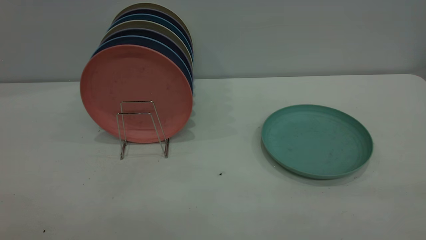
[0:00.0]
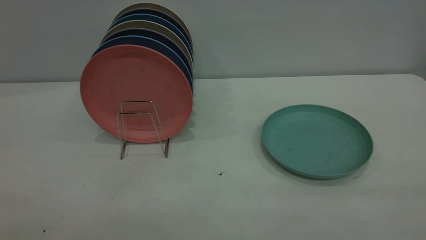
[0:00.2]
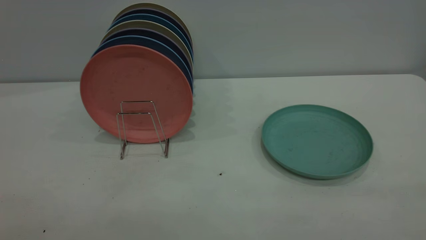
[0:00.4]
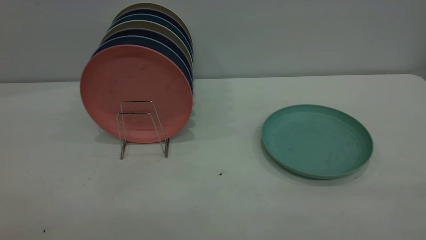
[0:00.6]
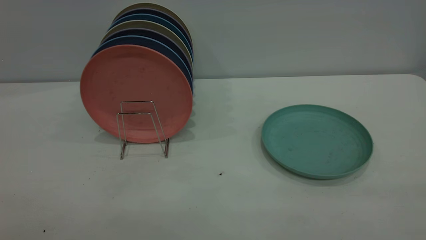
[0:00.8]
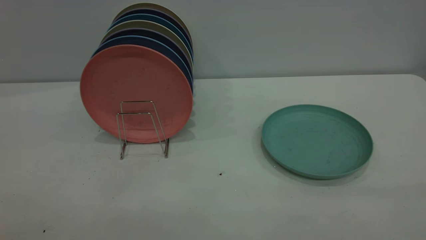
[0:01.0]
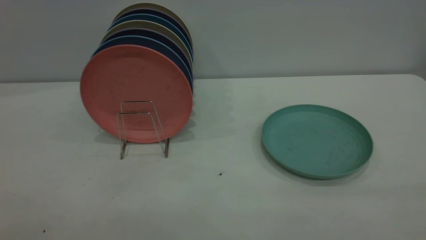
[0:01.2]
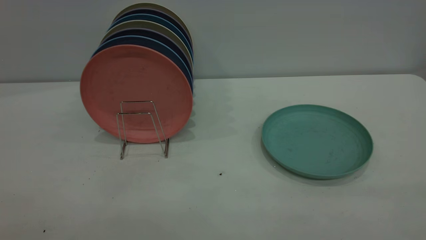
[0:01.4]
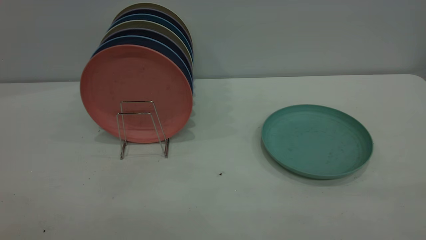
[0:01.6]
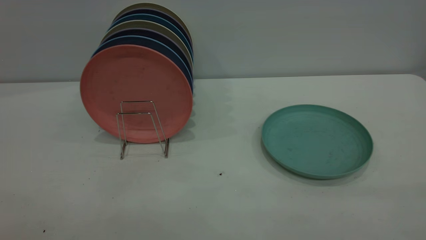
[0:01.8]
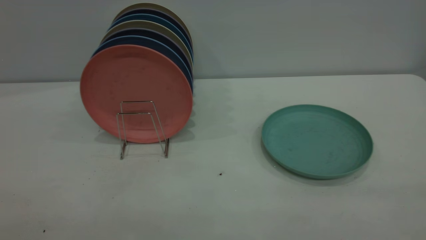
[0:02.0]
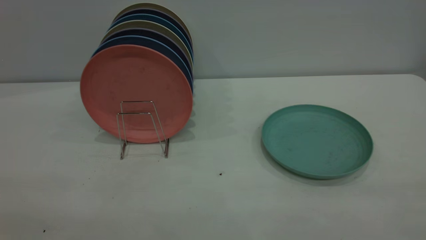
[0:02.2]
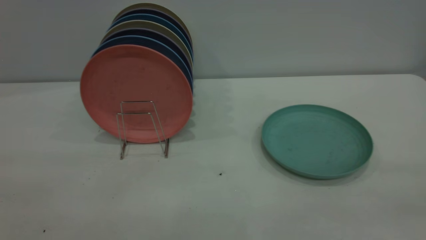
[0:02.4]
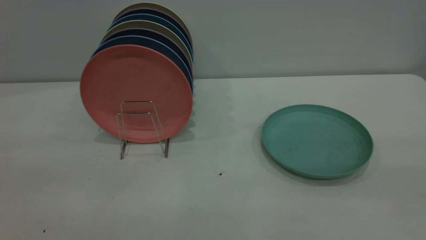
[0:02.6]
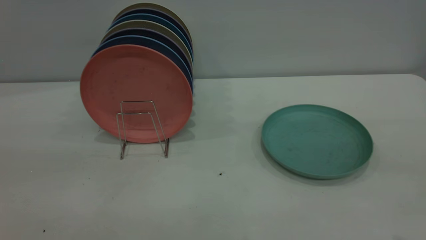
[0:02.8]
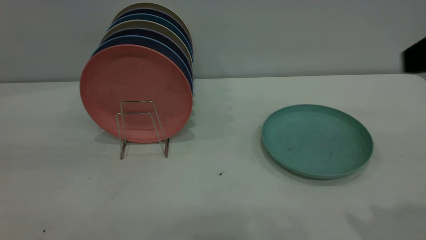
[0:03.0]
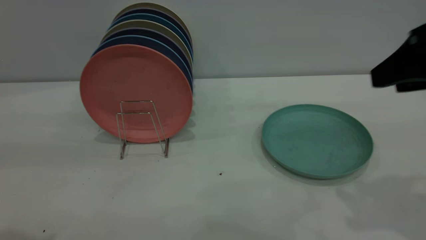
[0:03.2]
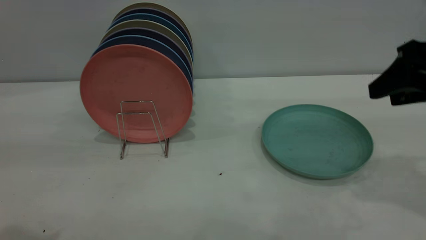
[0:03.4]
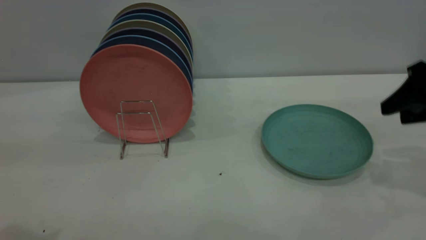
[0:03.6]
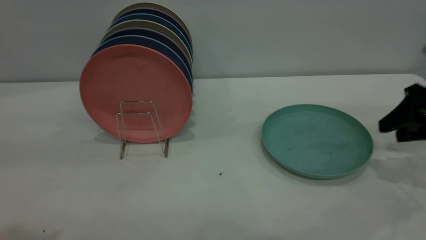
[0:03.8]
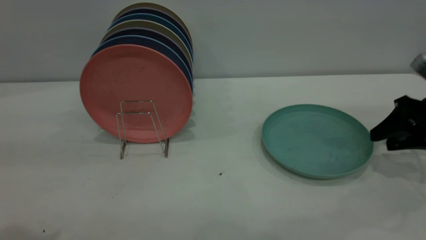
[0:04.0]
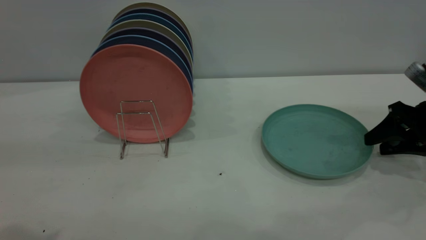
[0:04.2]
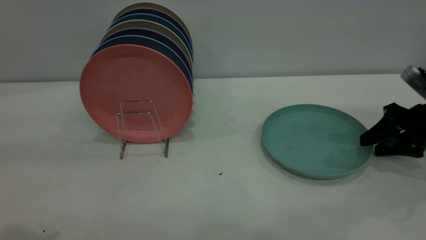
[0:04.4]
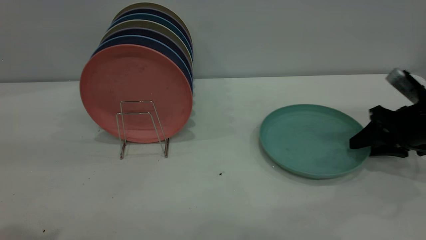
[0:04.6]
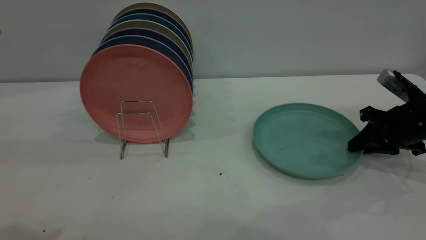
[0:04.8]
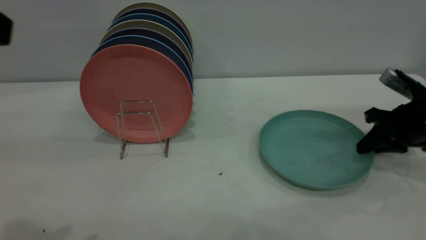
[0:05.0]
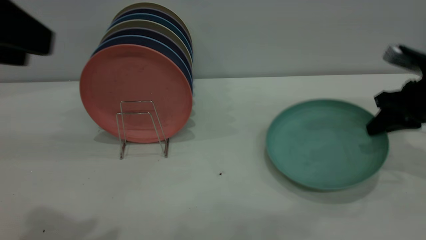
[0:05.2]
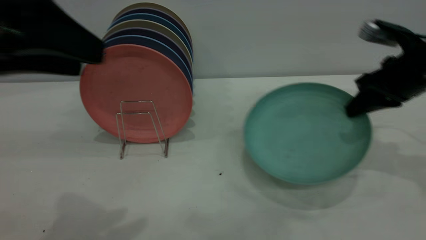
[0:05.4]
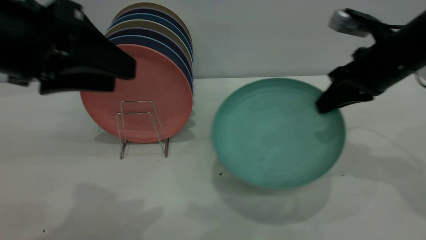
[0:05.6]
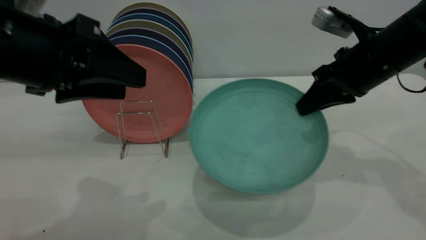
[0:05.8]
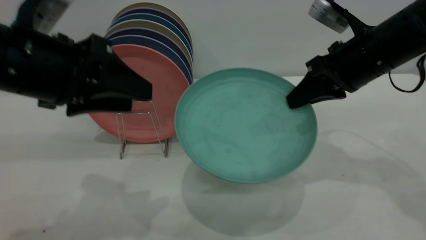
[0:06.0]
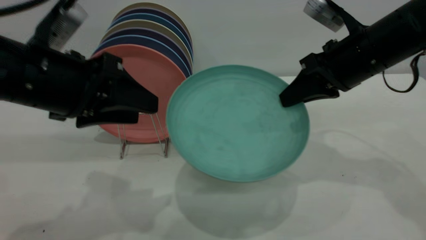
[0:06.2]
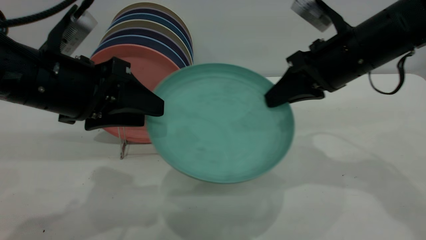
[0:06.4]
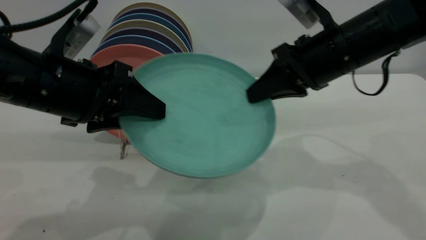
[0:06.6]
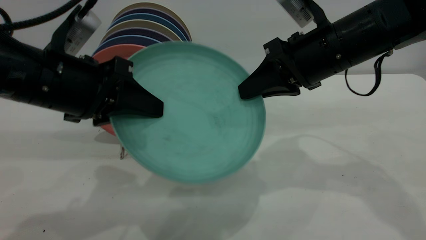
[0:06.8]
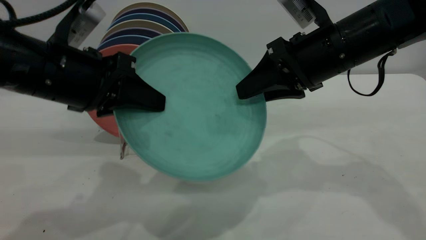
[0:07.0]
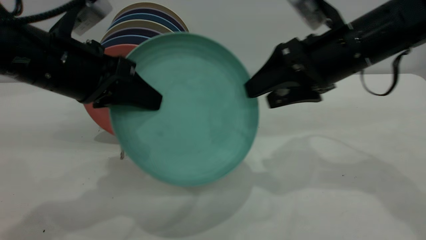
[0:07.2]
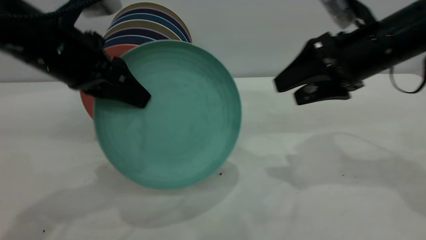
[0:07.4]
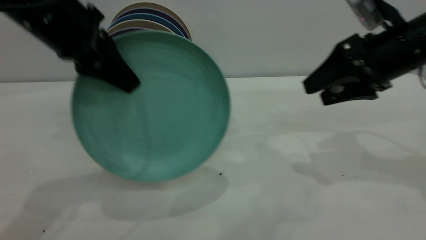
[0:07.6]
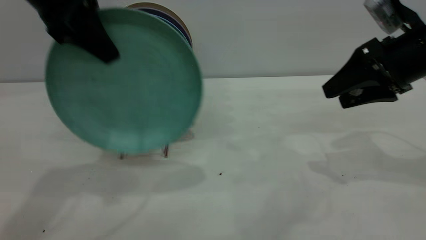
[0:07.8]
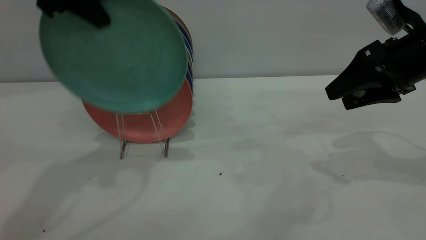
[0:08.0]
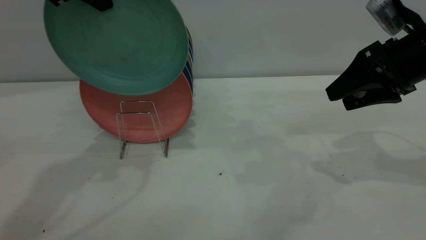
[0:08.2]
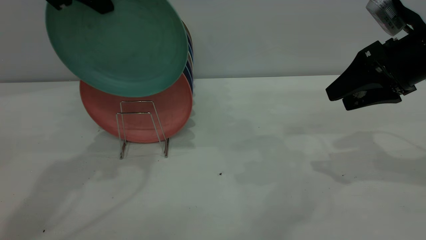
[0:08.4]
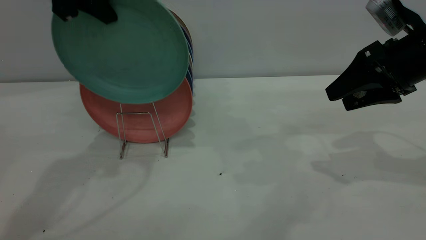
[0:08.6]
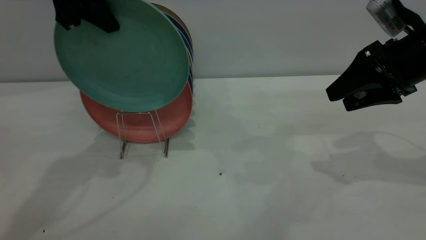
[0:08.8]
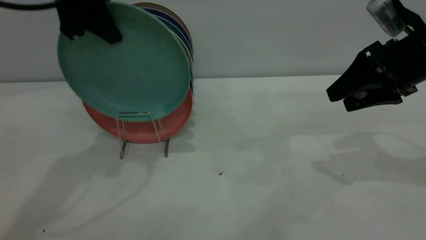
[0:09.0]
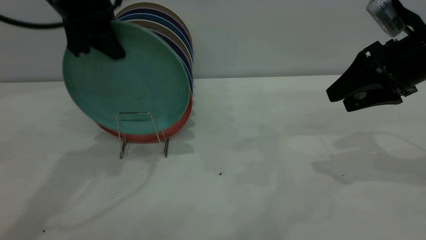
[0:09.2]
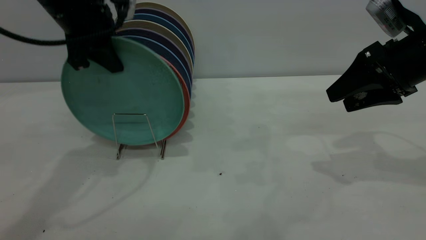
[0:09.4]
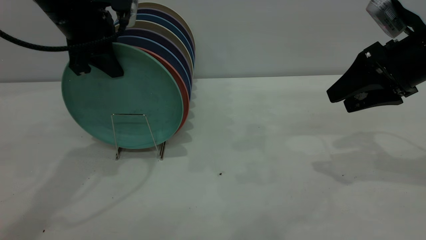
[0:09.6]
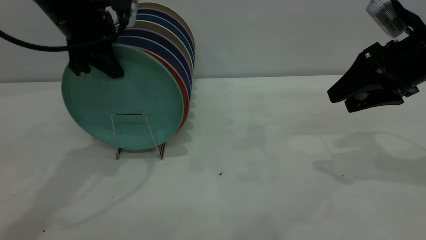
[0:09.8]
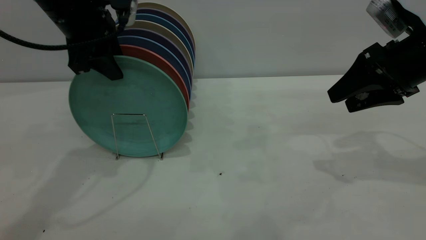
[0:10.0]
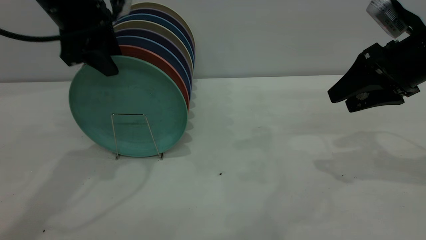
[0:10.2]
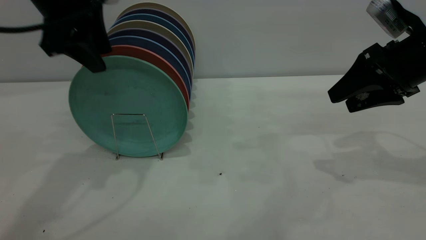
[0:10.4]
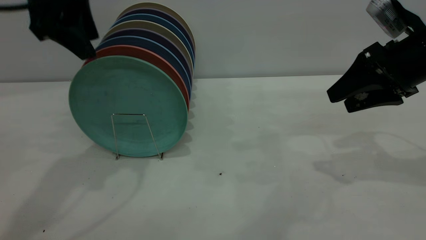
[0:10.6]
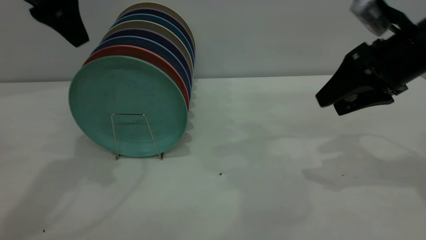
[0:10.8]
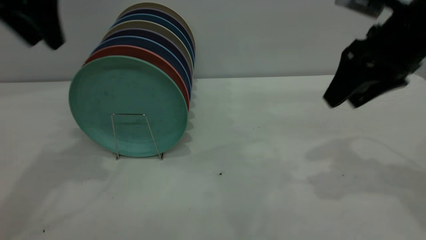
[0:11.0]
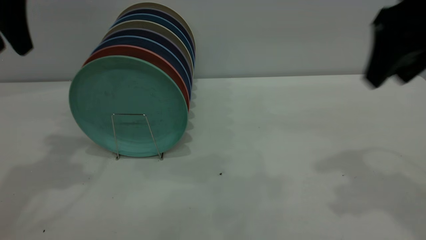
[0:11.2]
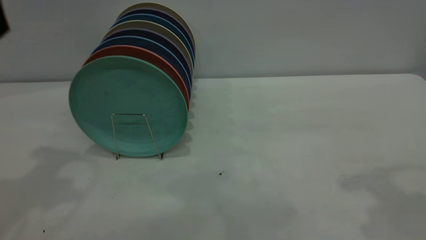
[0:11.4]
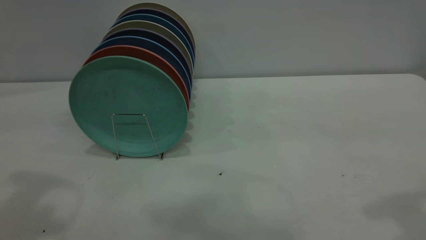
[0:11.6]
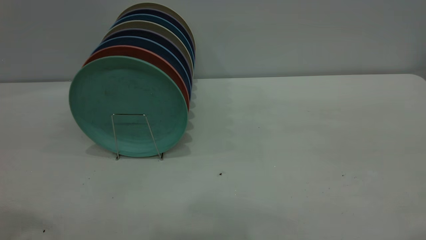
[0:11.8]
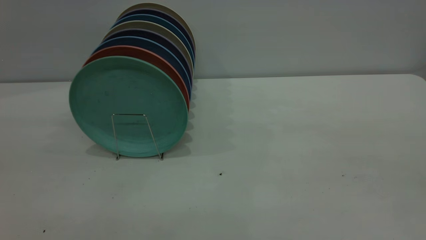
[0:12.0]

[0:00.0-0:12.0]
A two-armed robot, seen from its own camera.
Task of the whole recording: the right gripper grasp the green plate, the right gripper pass the green plate to the left gripper, and the left gripper place the green plate on the plate rack.
Step, 0:00.0 to 0:05.2: Pick up the plate with the right gripper.
Step, 0:05.4 to 0:07.2: Pass the plate from the right gripper to the left gripper.
Step, 0:07.4 to 0:10.6: Place the plate on the shelf.
0:00.0 to 0:01.6: Both grippers stay about where they are.
0:01.6 to 0:03.0: The right gripper moves forward, roughly 20 cm.
0:03.0 to 0:04.4: The right gripper heads downward and forward, covering roughly 25 cm.
0:04.4 to 0:06.0: The right gripper is displaced to the left and upward by some 20 cm, and closes its fingers. The left gripper travels downward, forward and to the right by approximately 15 cm.
0:06.0 to 0:07.6: The right gripper opens. Meanwhile the left gripper goes approximately 10 cm forward and upward, and closes up.
0:07.6 to 0:09.0: The left gripper shifts approximately 5 cm forward, and reaches about 10 cm upward, then returns.
0:09.0 to 0:10.4: The left gripper opens.
0:10.4 to 0:12.0: The right gripper goes approximately 35 cm backward and upward; the left gripper is displaced backward by roughly 25 cm.
